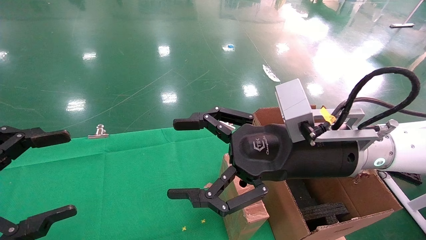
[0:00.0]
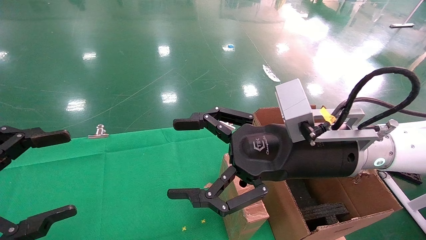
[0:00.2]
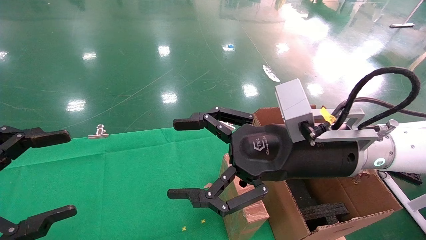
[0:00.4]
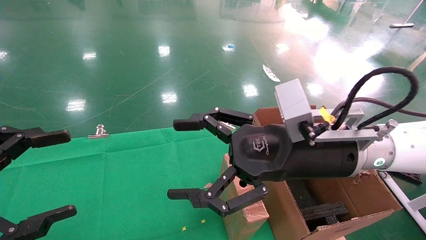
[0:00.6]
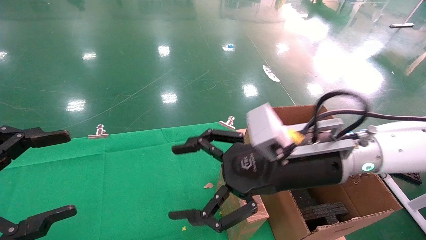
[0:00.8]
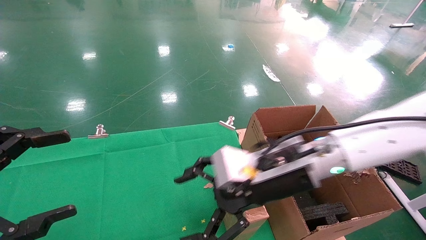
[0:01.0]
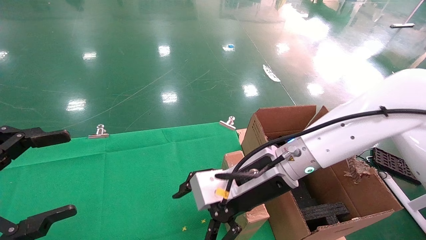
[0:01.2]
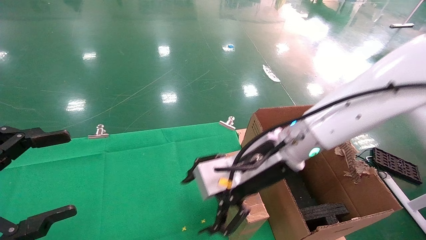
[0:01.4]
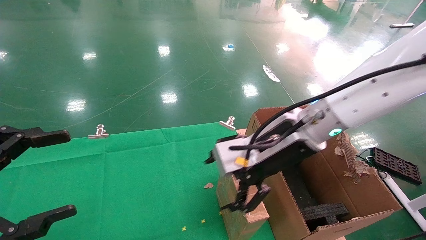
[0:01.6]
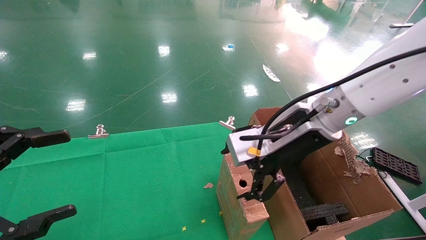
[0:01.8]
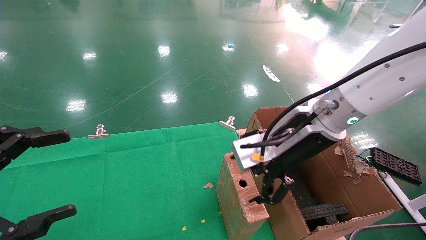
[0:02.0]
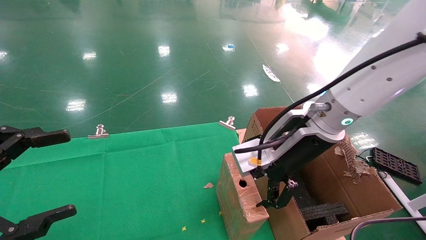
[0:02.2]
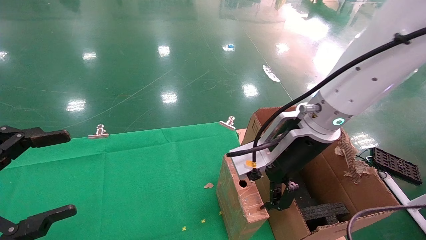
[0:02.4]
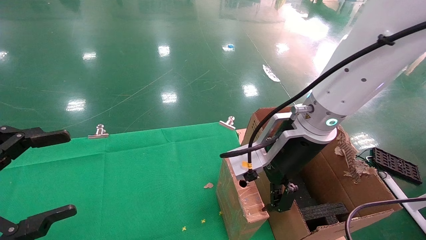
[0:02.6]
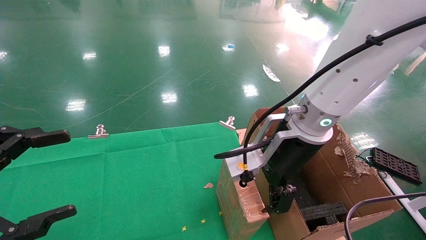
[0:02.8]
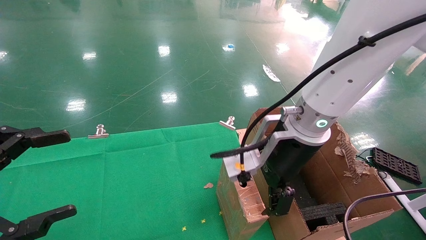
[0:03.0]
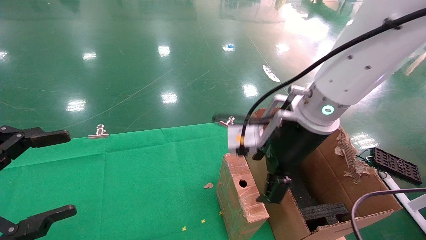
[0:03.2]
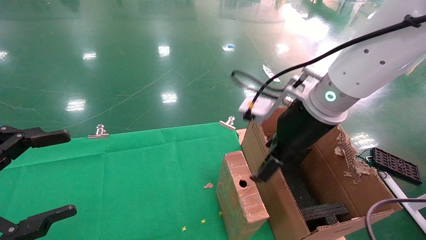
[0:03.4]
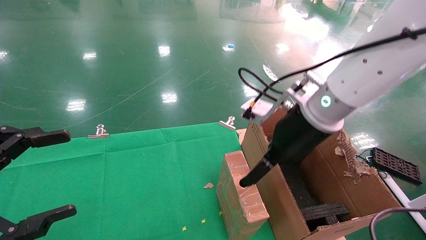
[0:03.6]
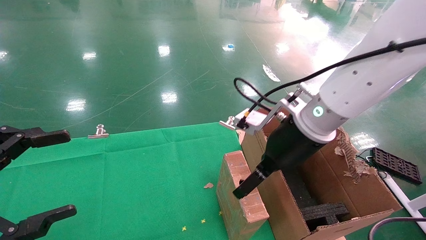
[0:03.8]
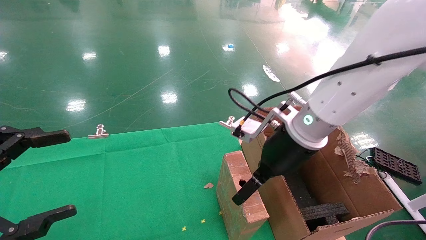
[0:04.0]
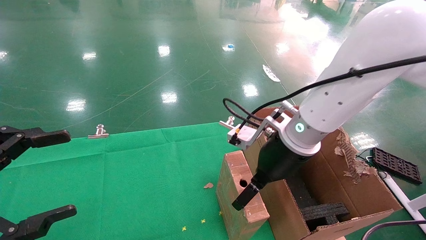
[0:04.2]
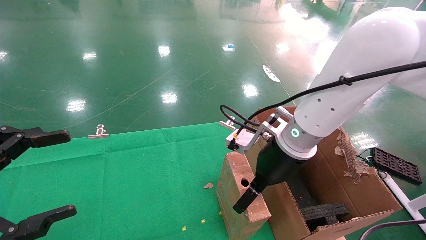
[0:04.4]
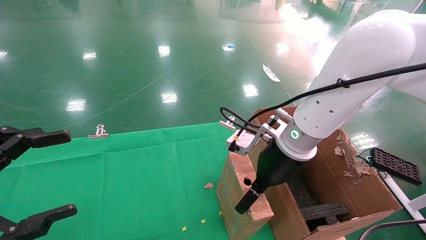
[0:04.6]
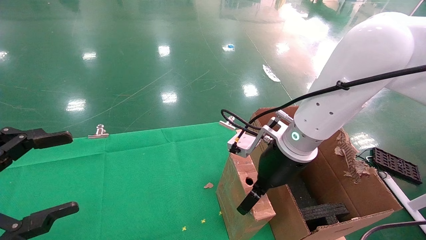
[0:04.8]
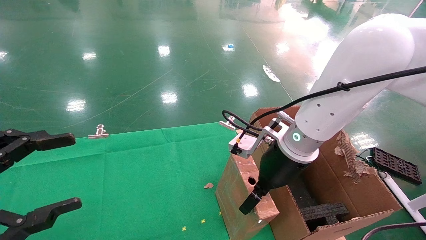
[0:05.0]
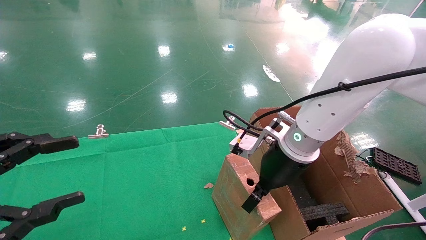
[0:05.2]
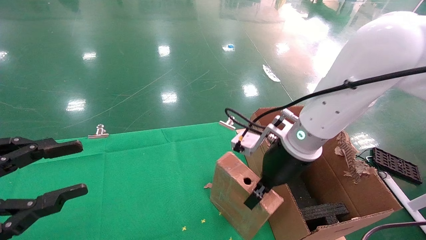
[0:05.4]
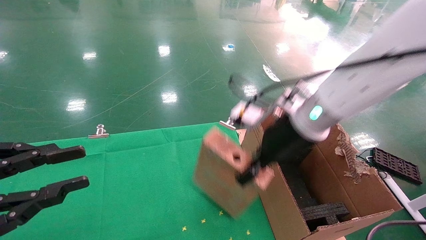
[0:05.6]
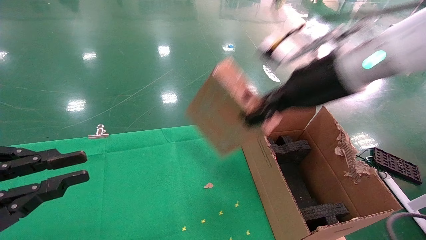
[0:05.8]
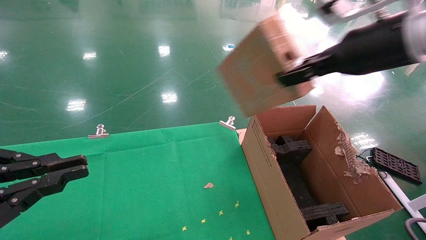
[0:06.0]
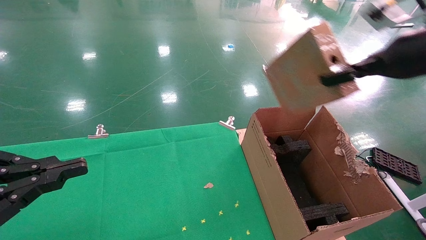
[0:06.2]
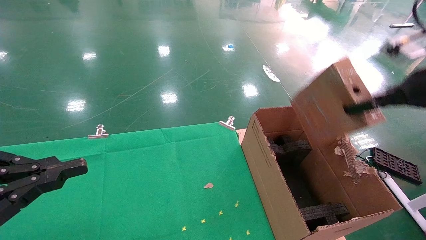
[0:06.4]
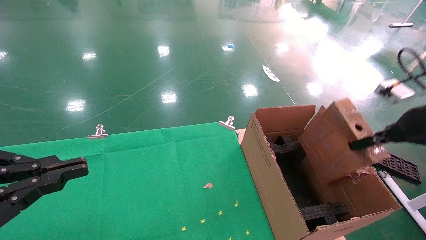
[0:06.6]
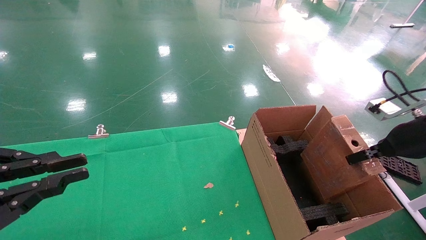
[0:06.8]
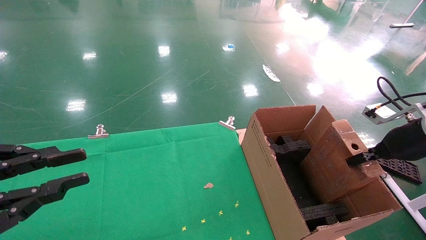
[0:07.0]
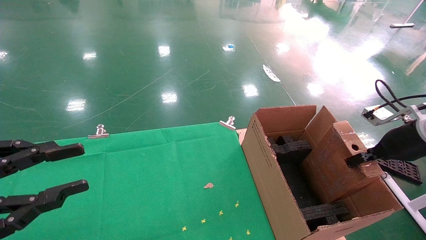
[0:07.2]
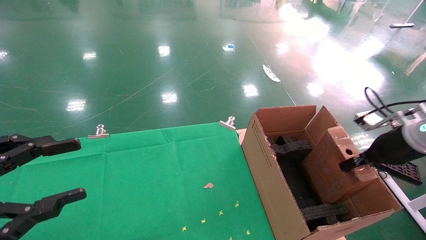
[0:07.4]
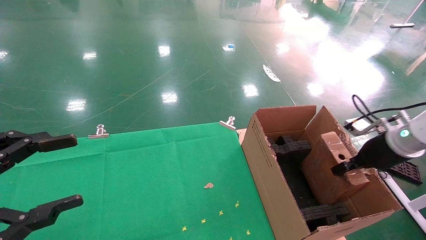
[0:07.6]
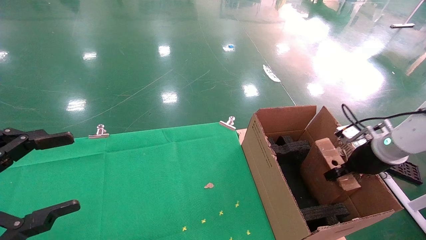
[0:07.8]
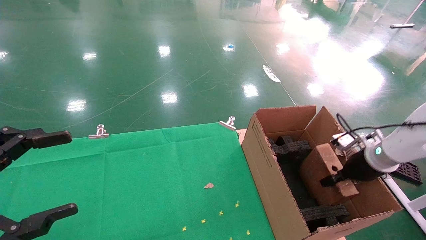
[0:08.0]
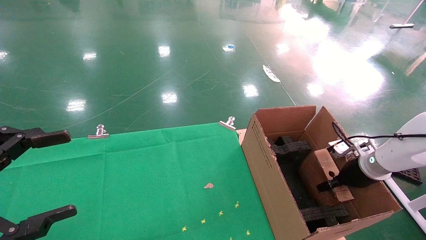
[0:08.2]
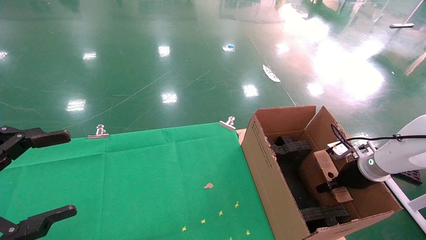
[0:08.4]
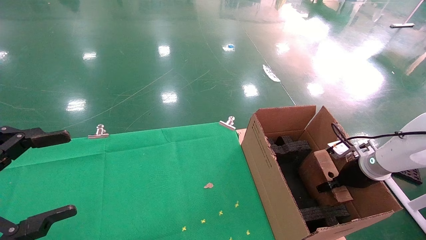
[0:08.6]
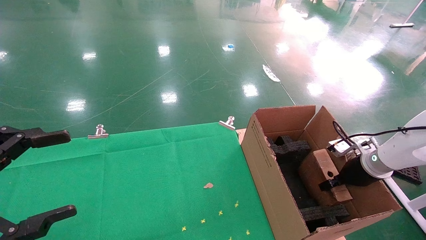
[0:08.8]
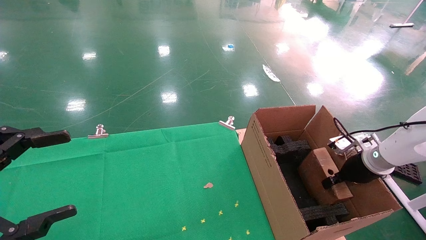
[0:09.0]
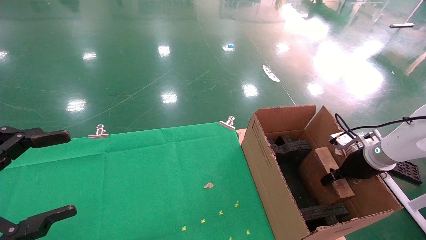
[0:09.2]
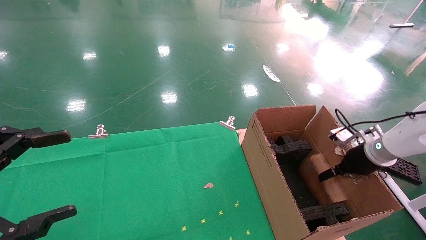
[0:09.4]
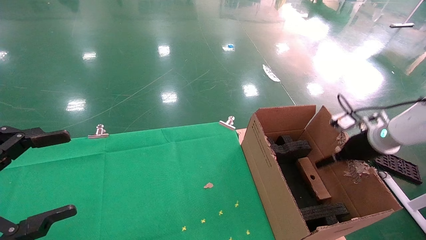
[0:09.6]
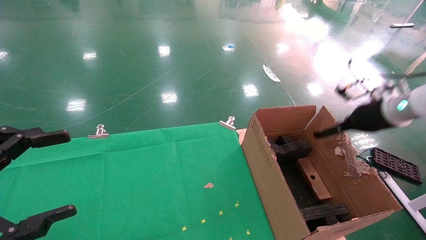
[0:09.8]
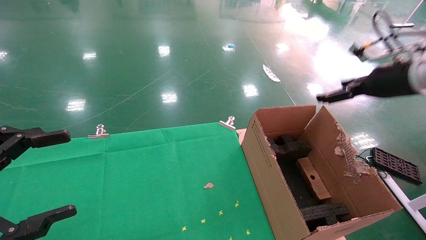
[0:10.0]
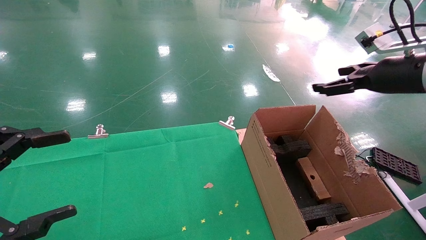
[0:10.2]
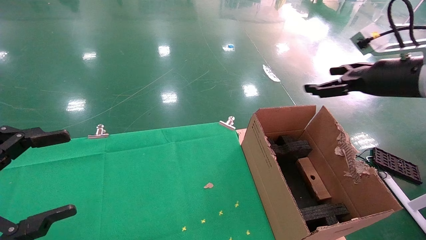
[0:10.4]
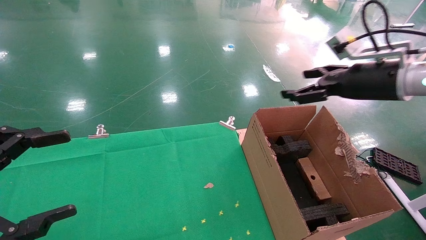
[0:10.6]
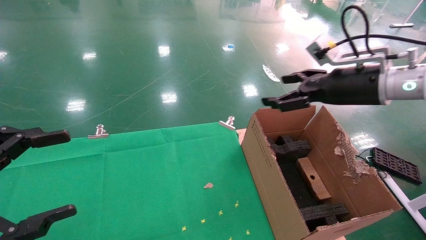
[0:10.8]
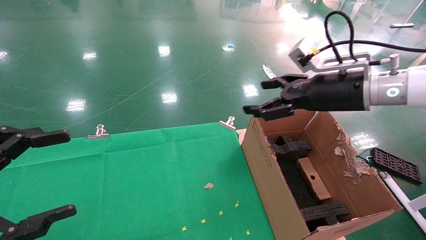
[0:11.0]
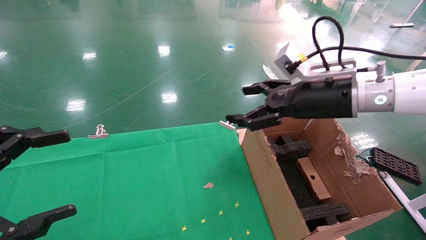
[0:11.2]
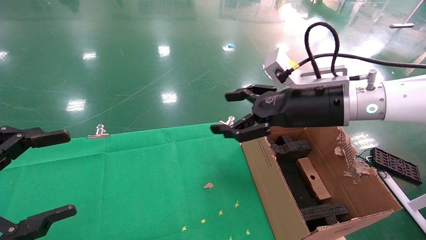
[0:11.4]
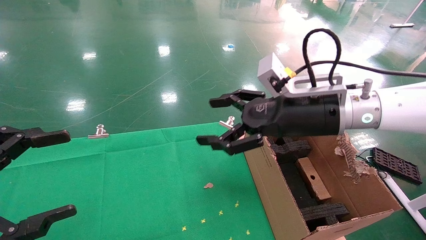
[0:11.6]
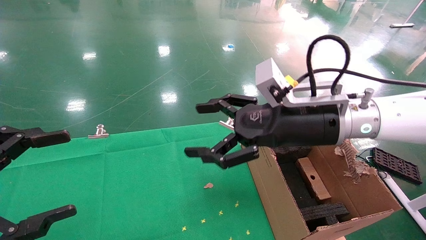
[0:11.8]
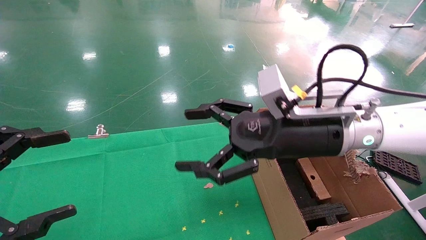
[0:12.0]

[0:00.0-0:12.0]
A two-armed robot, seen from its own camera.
Task of the whole recording: using a robotic arm to pick up a cardboard box and palace it the carton.
Step, 0:01.0 to 0:05.2: Pick up the mouse and the power cord paper box.
Step, 0:05.4 to 0:09.6: Place the mouse and the power cord paper box into the container.
0:00.0 to 0:01.6: The right gripper ends up some 5 cm from where it was.
0:03.0 to 0:04.4: The right gripper goes roughly 5 cm downward.
0:04.4 to 0:06.0: The left gripper closes up, while the right gripper is displaced upward and to the right by approximately 20 cm, and closes its fingers.
0:06.0 to 0:07.6: The left gripper opens up. The right gripper moves downward and to the right, some 25 cm.
0:07.6 to 0:09.0: The left gripper opens, while the right gripper moves downward, roughly 5 cm.
0:09.0 to 0:10.4: The right gripper moves upward, approximately 20 cm, and opens up.
0:10.4 to 0:12.0: The right gripper shifts some 20 cm to the left.

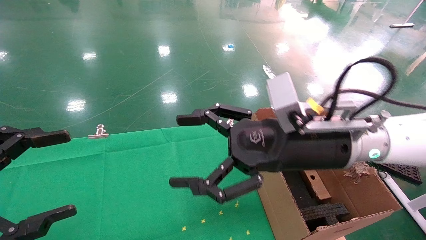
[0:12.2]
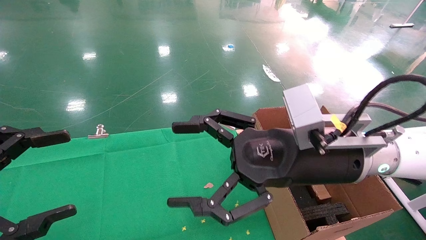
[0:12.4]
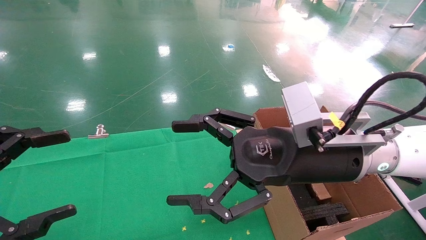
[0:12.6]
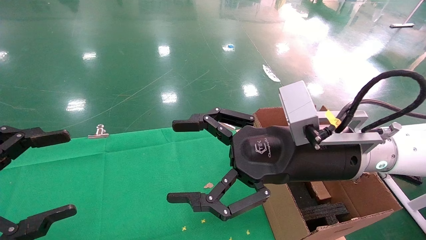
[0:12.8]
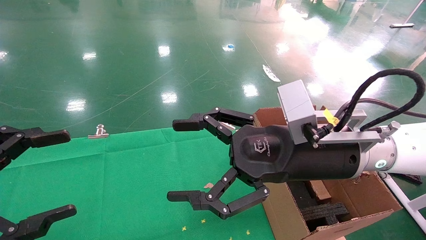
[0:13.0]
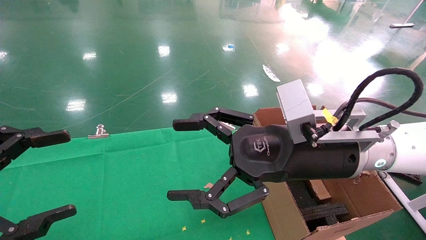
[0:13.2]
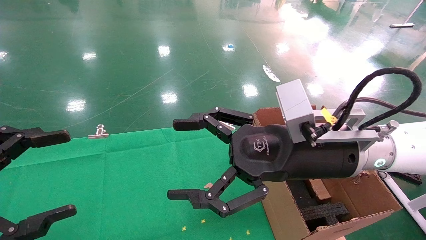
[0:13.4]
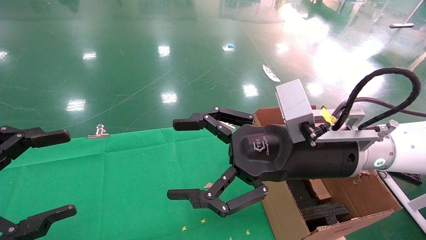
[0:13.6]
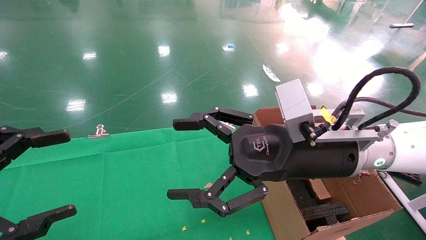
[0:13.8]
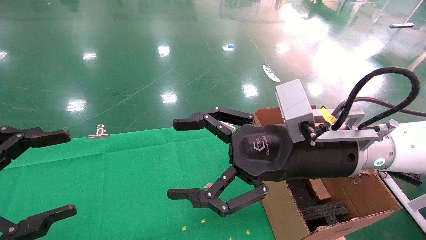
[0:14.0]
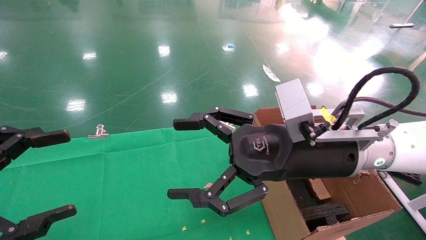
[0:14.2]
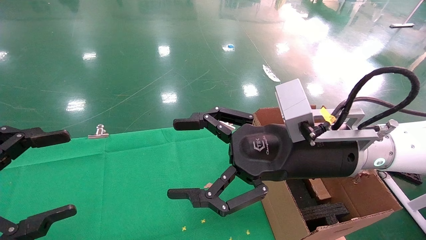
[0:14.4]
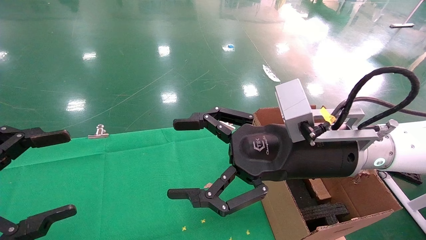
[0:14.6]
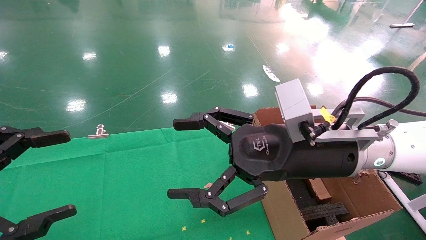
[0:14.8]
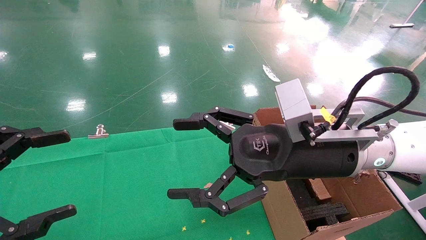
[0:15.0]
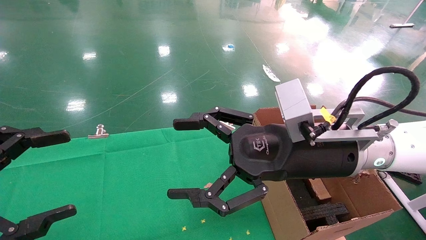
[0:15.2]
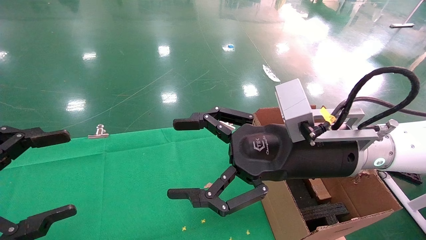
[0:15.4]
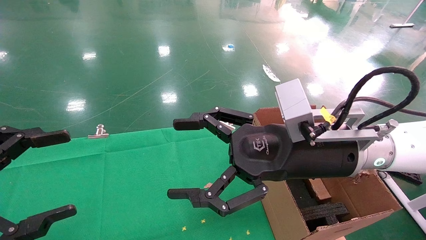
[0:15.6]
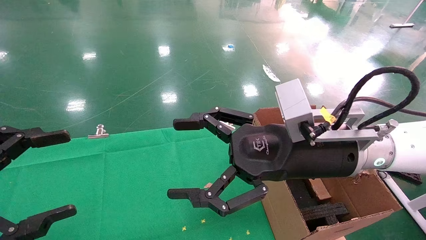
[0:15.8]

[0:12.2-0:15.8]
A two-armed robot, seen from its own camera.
Task of the whole recording: using a robotic arm to pick up a cardboard box and palace it the carton.
0:12.2 to 0:14.0: The grippers stay close to where they were, moving slightly.
0:14.0 to 0:15.8: Both grippers stay put.
